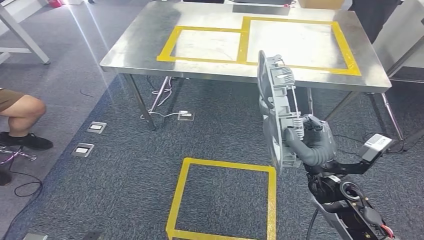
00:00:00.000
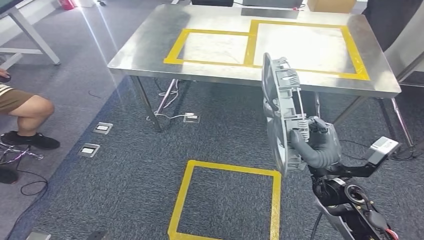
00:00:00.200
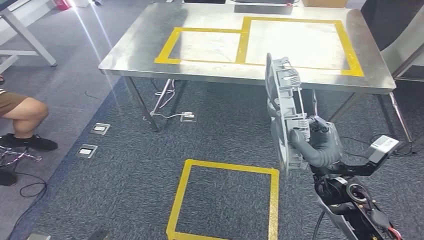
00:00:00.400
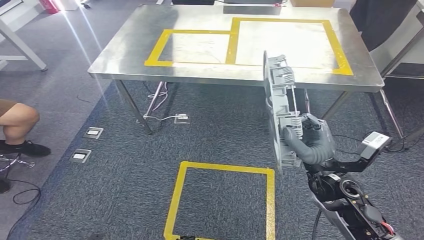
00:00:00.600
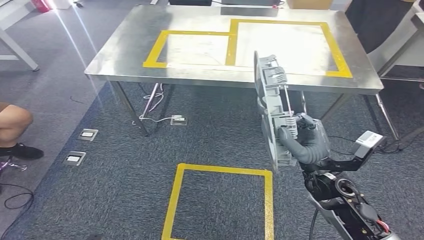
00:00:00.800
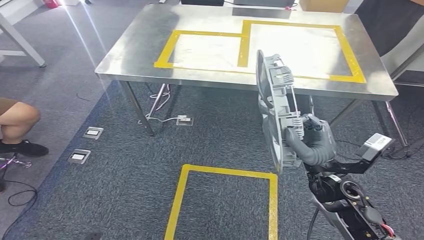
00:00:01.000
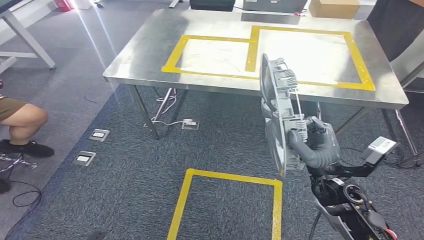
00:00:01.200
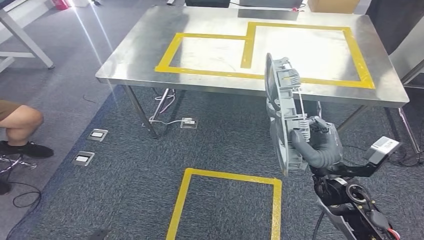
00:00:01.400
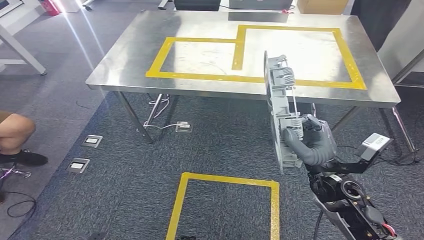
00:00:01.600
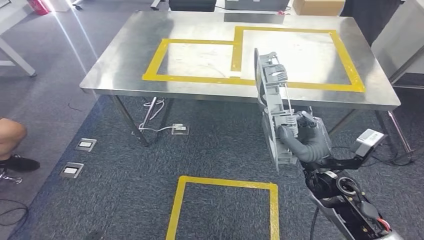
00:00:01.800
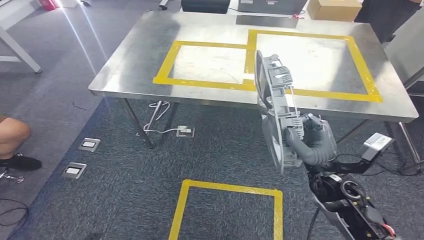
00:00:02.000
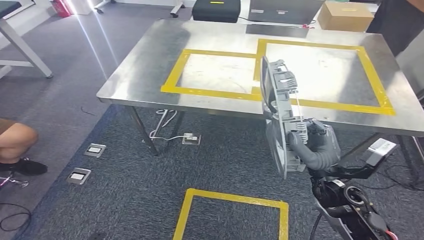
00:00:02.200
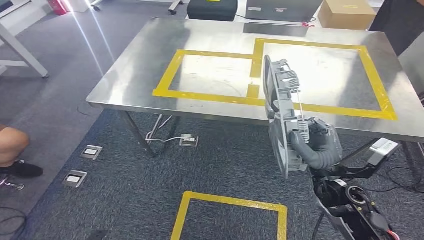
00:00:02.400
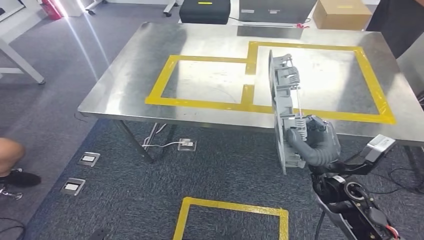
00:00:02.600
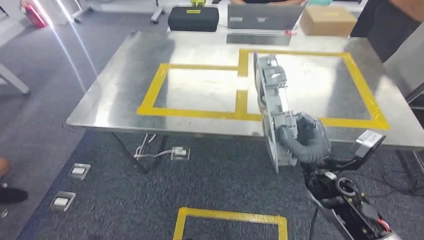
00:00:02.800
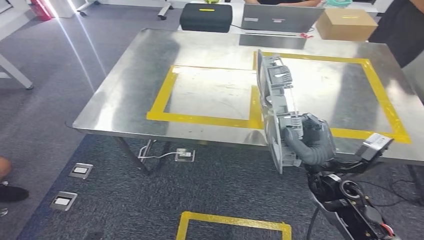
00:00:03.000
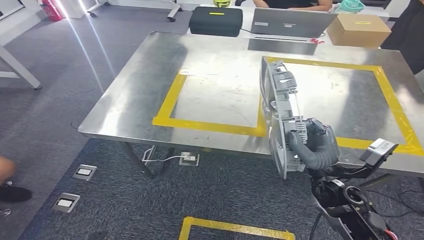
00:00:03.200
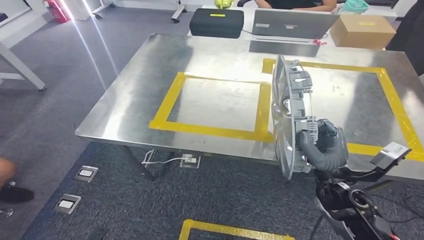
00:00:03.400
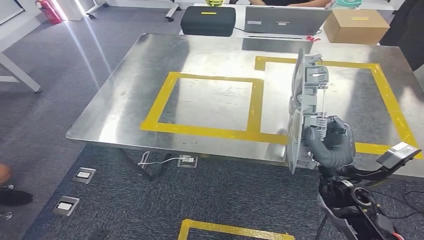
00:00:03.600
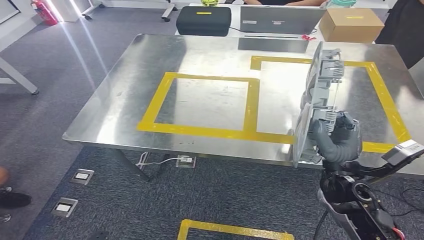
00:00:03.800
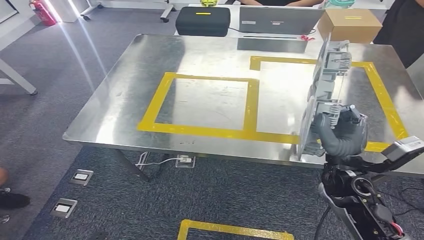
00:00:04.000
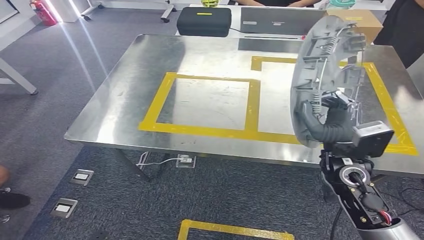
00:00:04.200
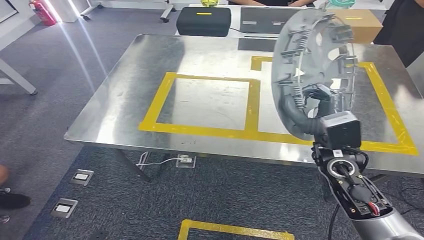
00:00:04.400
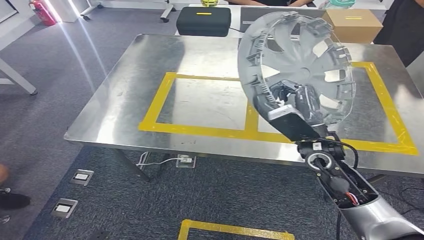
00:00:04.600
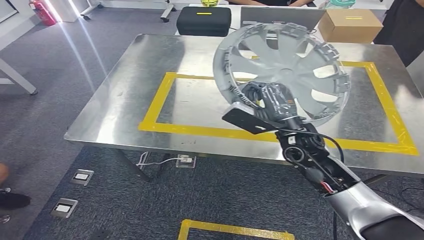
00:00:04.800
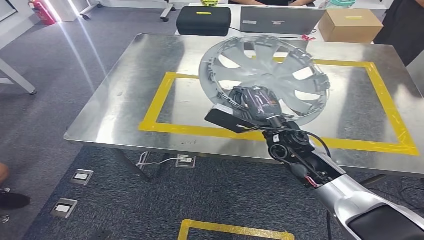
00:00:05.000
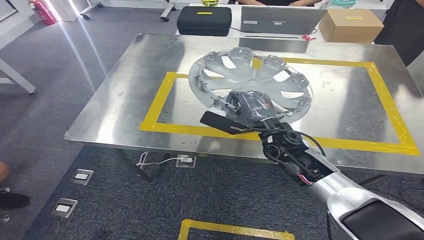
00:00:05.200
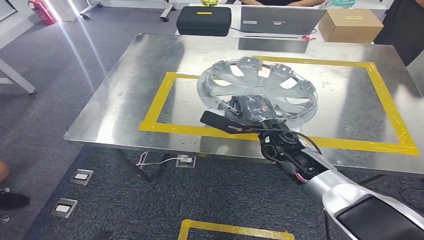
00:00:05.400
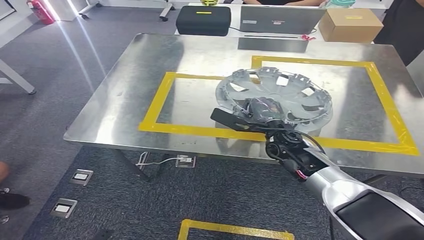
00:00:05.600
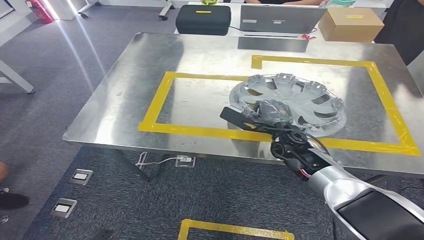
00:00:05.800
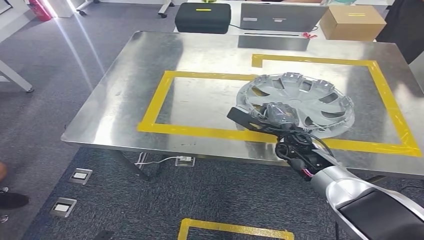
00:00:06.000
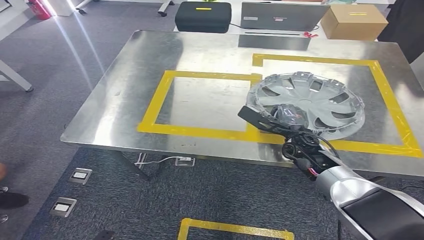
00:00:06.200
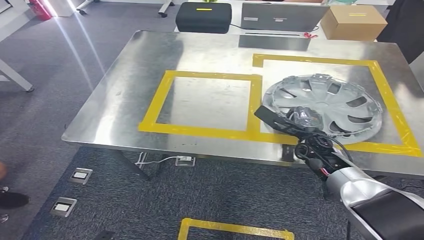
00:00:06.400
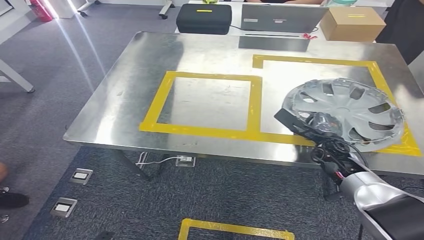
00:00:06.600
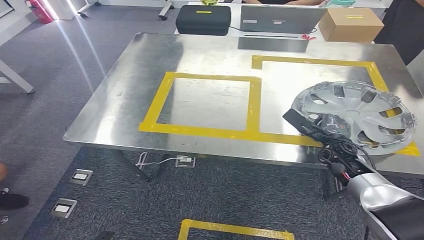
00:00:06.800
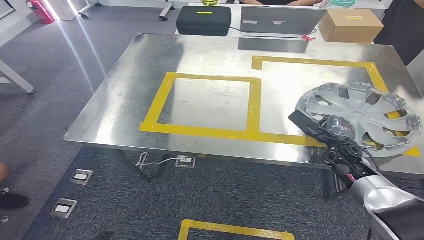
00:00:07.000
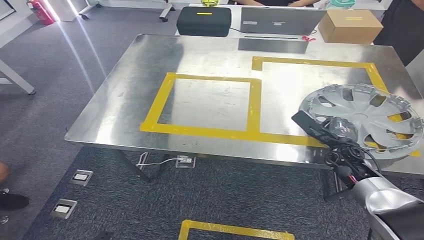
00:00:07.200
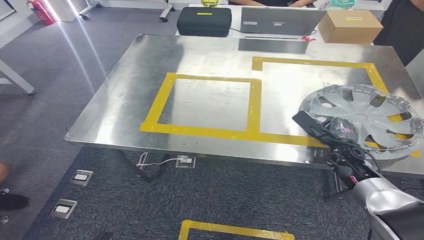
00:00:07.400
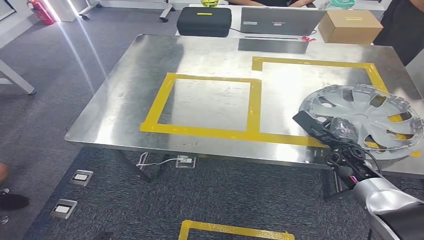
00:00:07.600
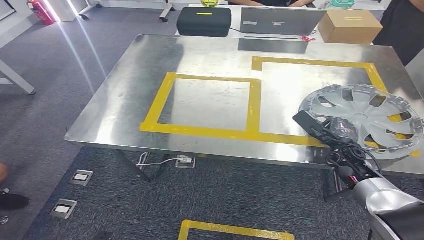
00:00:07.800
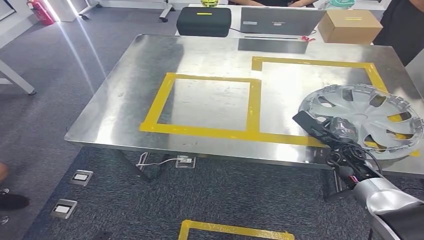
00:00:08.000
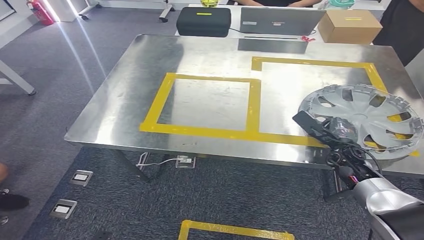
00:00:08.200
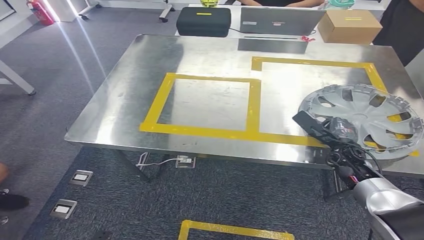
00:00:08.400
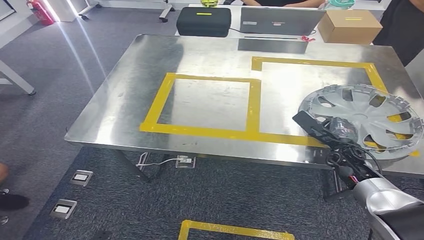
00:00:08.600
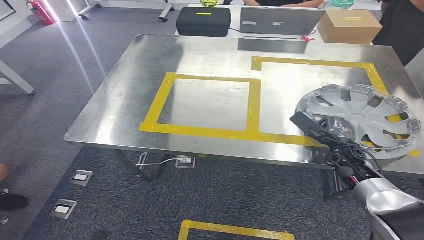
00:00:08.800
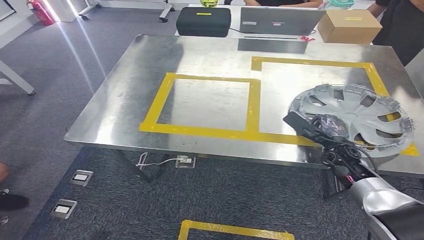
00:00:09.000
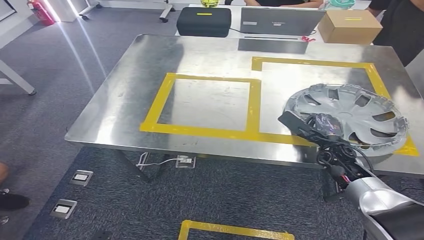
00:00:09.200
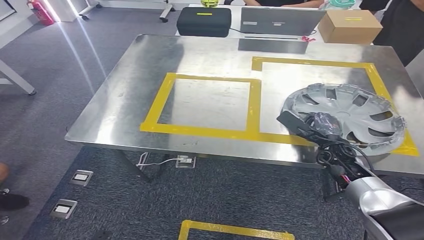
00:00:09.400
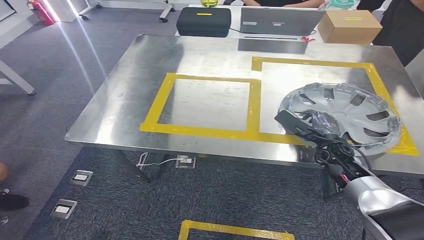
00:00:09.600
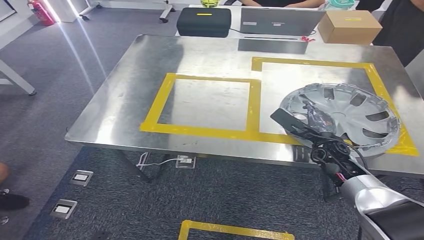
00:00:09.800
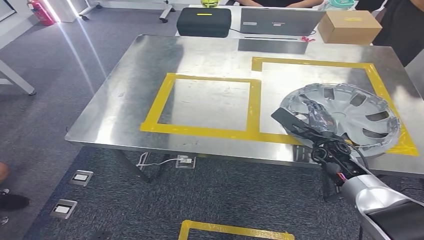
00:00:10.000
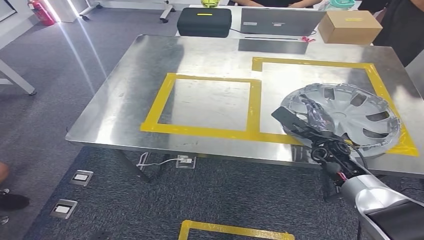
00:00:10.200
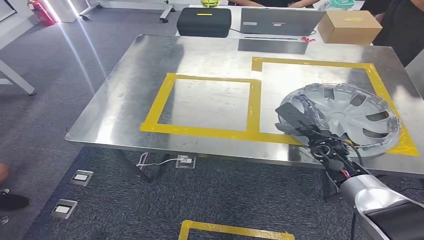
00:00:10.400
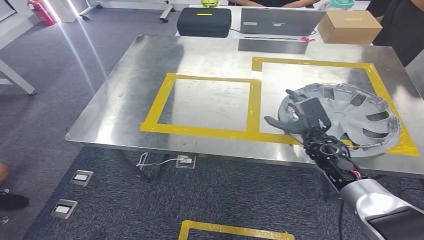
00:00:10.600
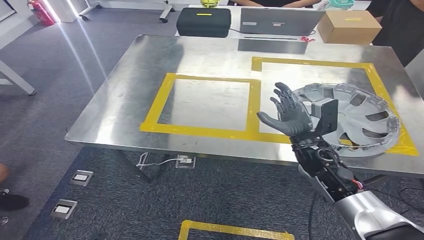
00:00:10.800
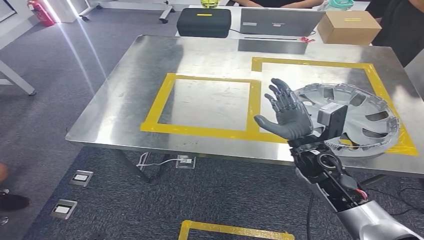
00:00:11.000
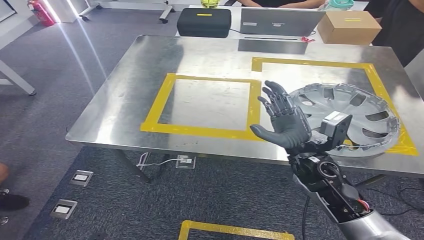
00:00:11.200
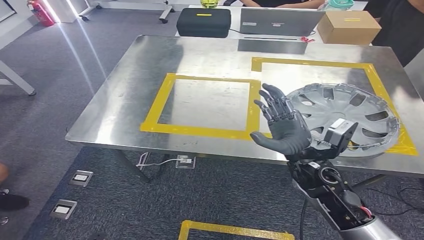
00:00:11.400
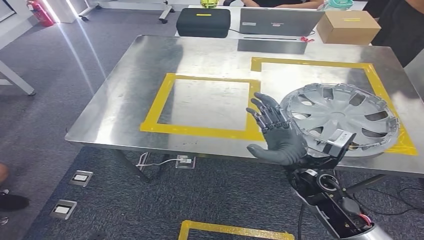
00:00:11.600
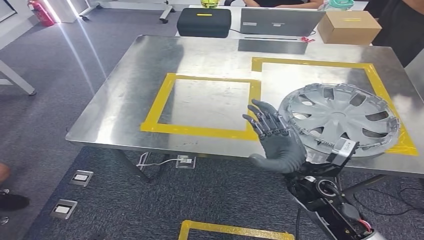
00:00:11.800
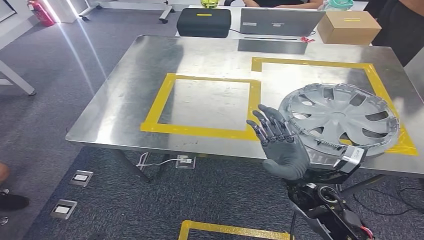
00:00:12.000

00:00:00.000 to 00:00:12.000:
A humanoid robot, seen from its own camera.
Step, 00:00:00.000 to 00:00:04.200: Move the small parts to the workbench.
00:00:07.600 to 00:00:09.000: The hands move only a little.
00:00:10.400 to 00:00:12.000: The right hand shifts approximately 15 cm backward and to the left.

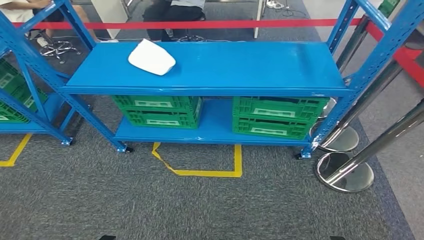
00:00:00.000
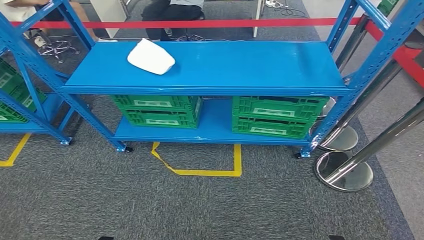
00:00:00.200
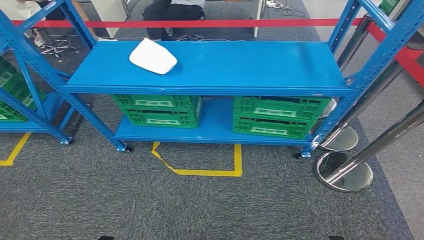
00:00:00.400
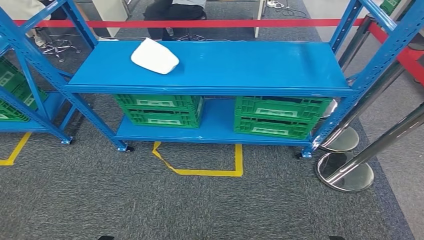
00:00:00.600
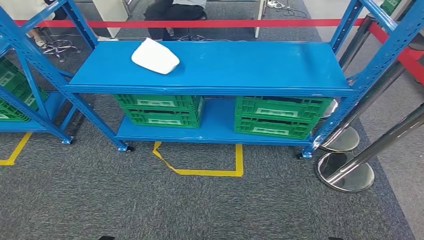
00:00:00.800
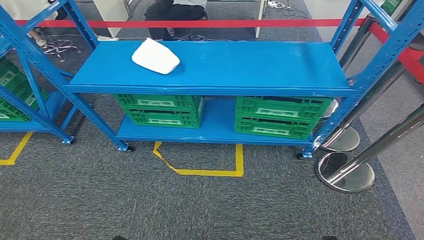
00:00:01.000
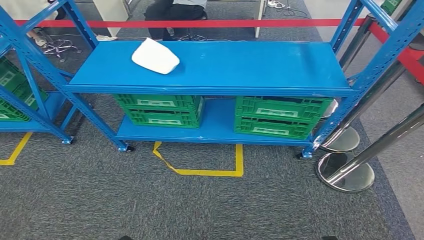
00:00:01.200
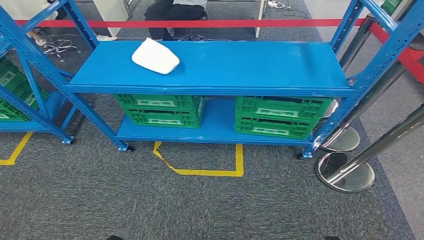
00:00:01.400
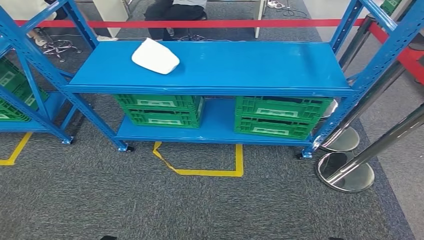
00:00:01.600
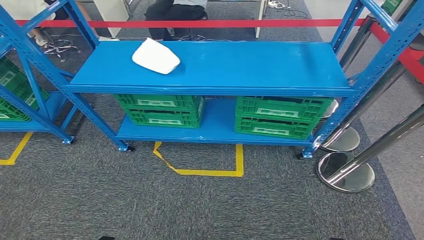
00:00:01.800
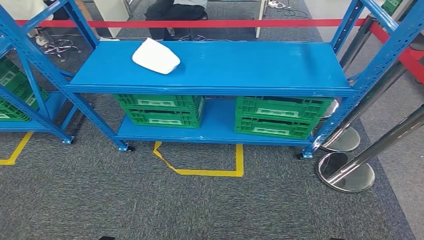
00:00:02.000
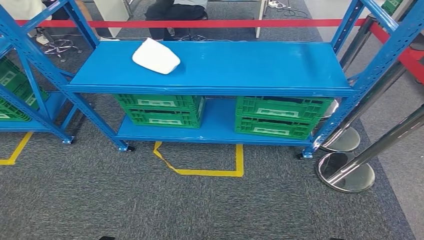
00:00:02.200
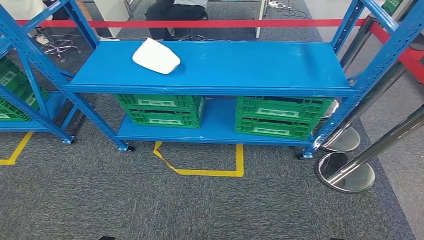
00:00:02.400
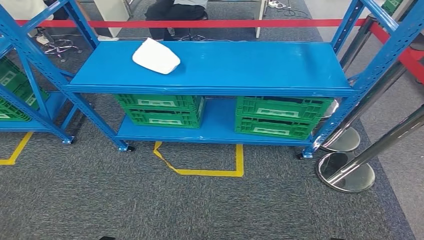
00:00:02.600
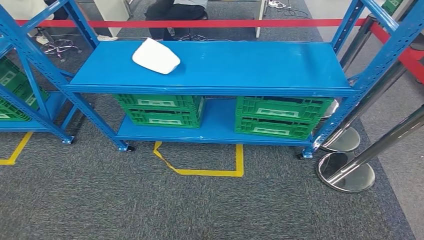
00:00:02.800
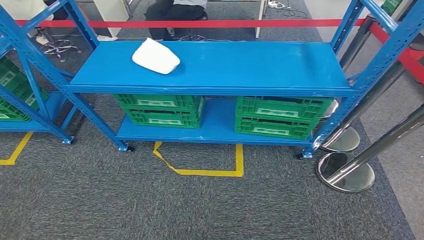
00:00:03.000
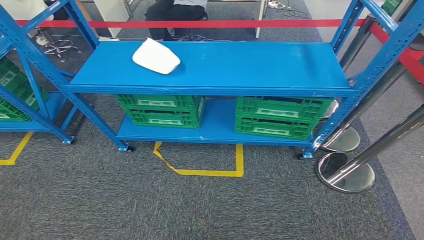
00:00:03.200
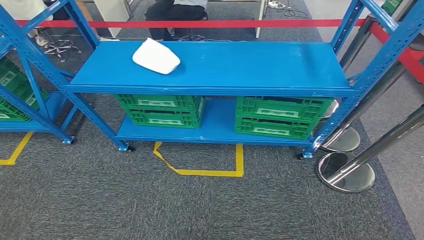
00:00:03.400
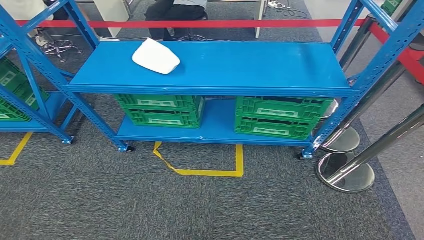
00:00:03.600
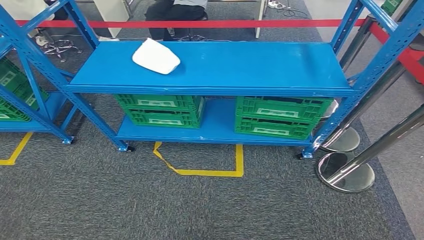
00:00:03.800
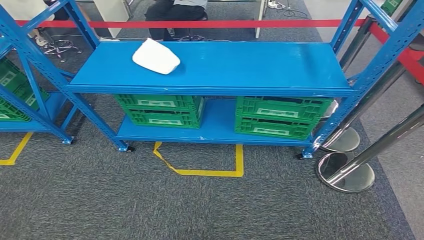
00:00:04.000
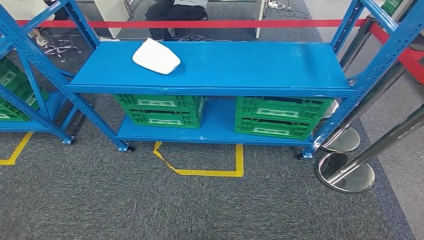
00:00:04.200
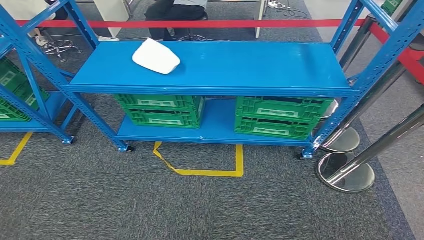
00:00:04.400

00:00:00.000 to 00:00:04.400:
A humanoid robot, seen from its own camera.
Step, 00:00:00.000 to 00:00:04.400: Move to the initial position at the workbench.
